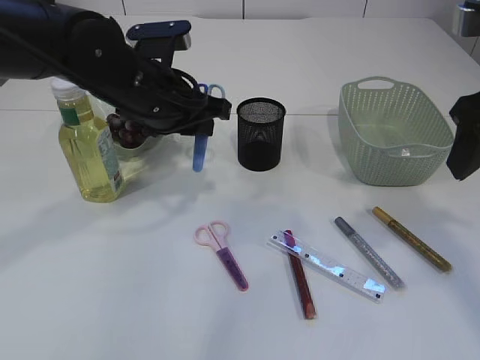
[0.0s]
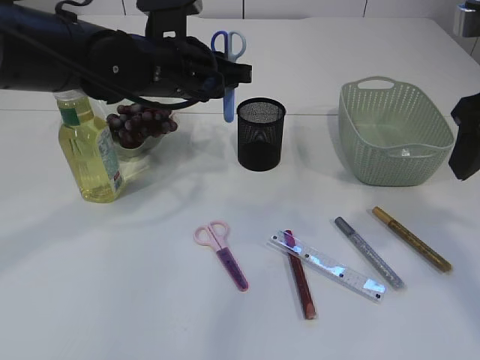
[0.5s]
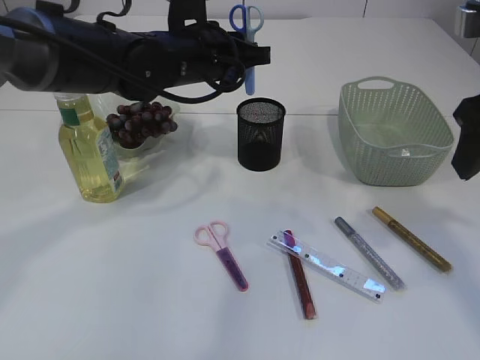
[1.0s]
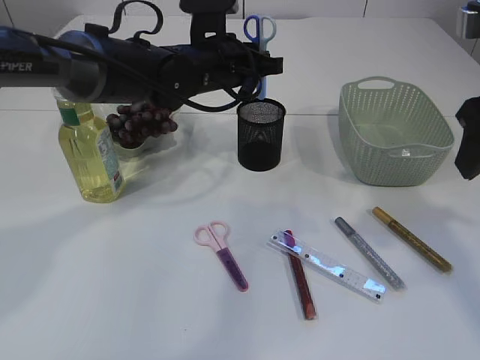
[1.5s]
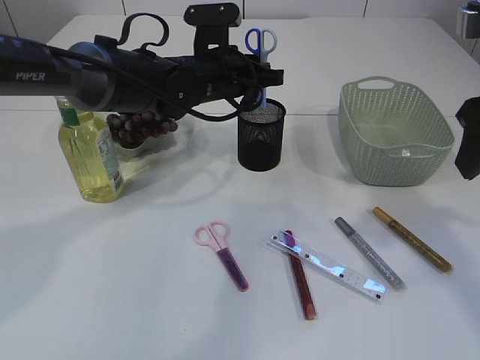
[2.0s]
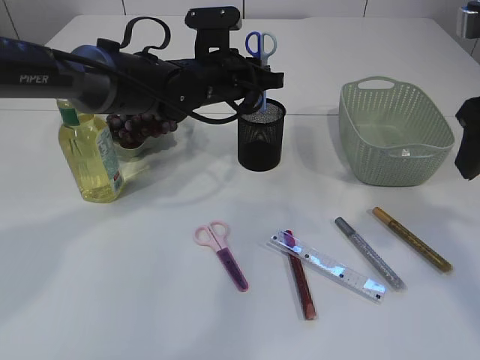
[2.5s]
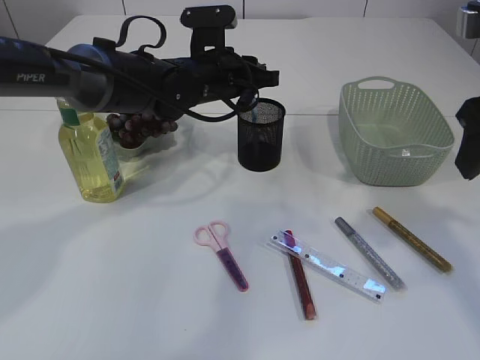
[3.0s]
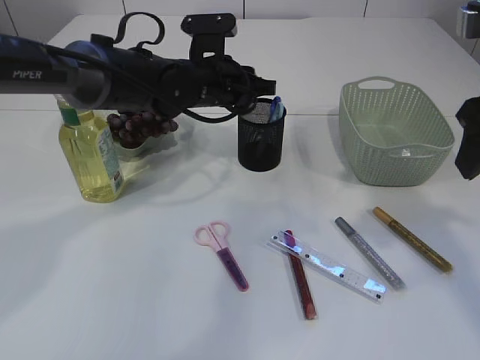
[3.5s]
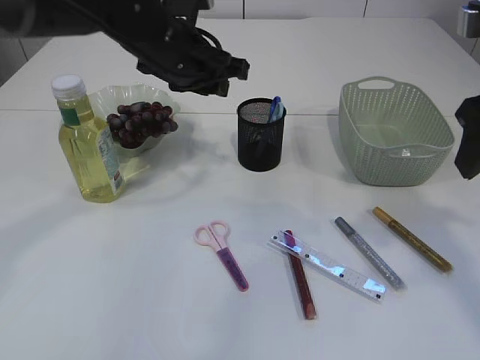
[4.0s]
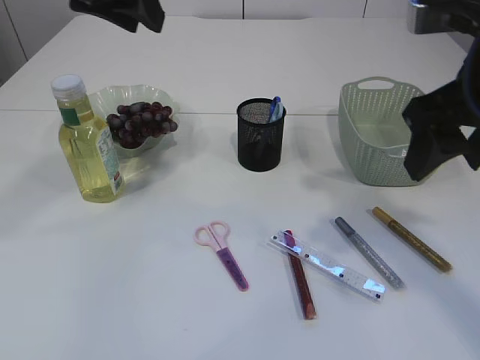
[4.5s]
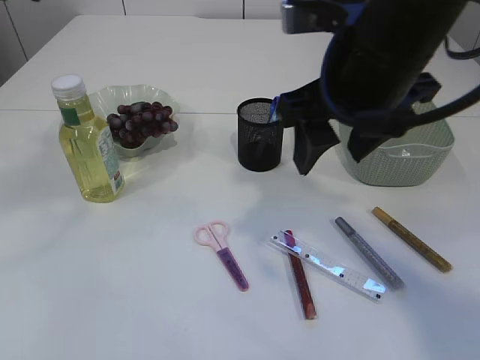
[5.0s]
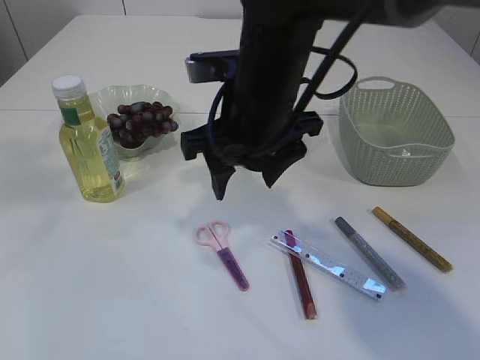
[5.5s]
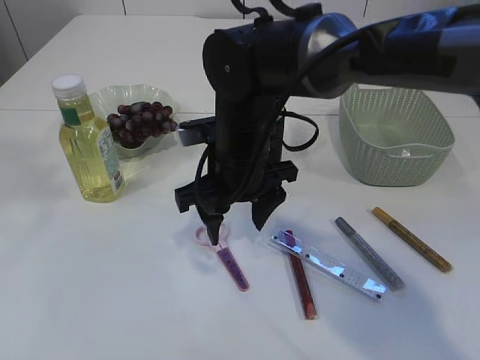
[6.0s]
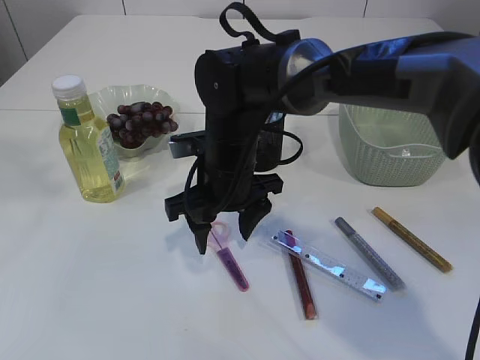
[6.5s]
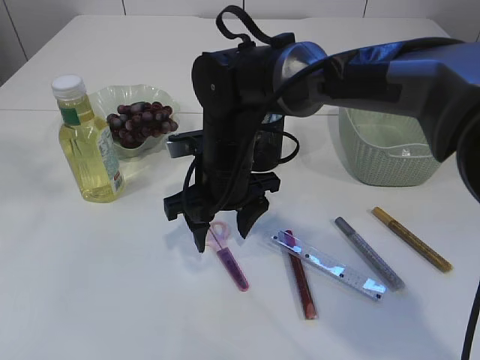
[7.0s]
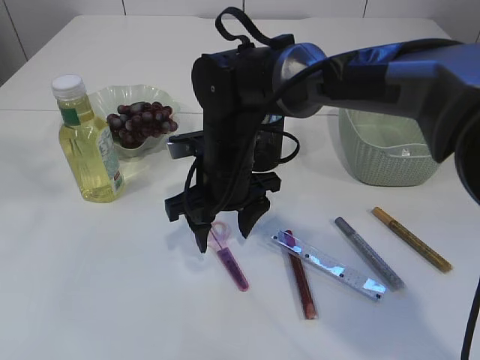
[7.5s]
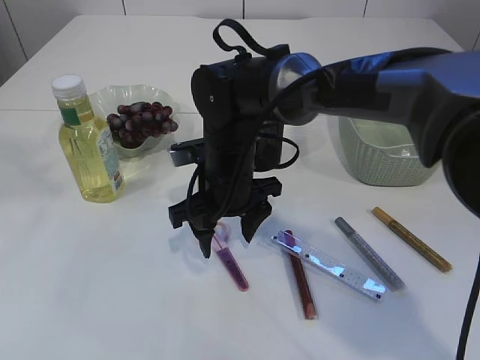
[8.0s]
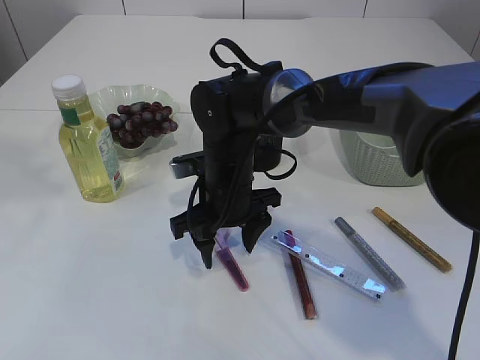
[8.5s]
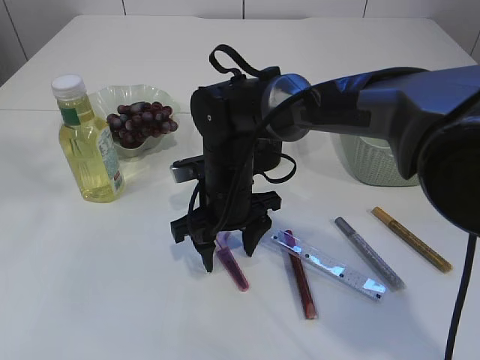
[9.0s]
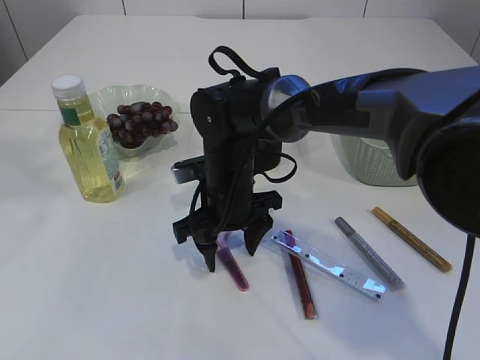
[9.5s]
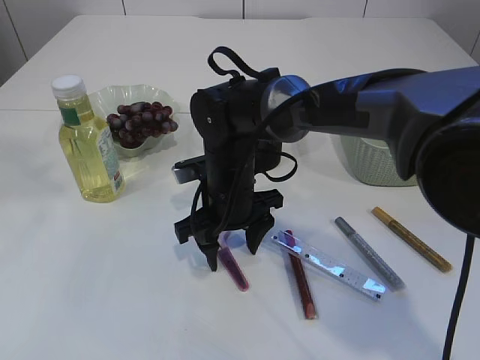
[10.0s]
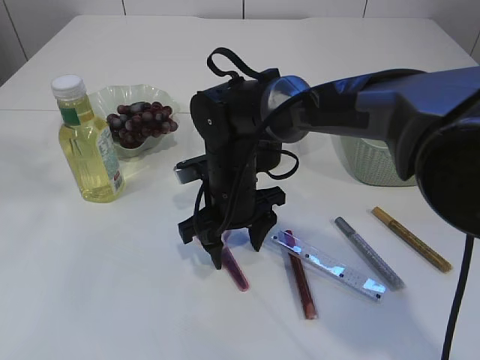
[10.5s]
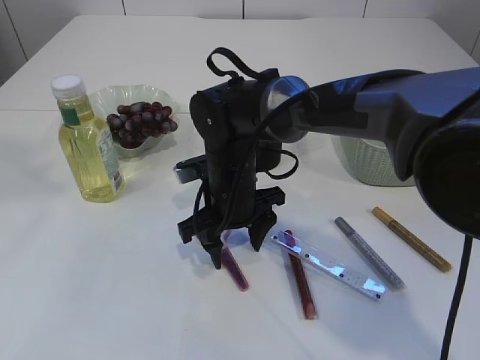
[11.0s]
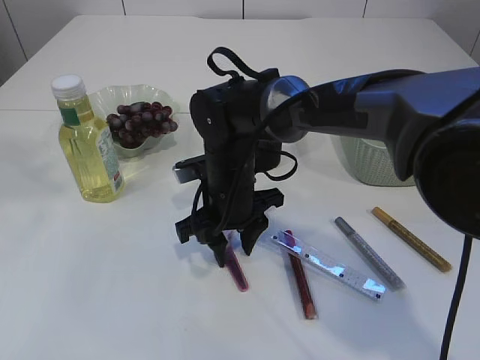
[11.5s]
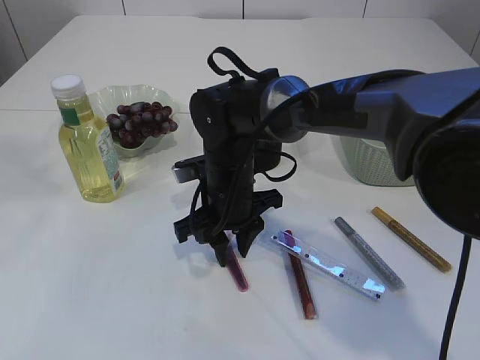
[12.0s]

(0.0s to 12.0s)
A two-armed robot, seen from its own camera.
Step, 0.0s - 3.0s: Place the blue scissors into the pen holder.
0.0s - 2.0s: The left gripper goes about 10 cm forward and to the right.
2.0s - 4.0s: The left gripper moves upward, some 5 cm.
4.0s - 6.0s: The left gripper goes some 35 cm upward, backward and to the left. The right gripper shifts some 25 cm to the left and downward.
6.0s - 8.0s: There are only small adjustments of the grippers.
8.0s - 10.0s: The grippers make only small movements.
10.0s - 12.0s: The right gripper closes its fingers.

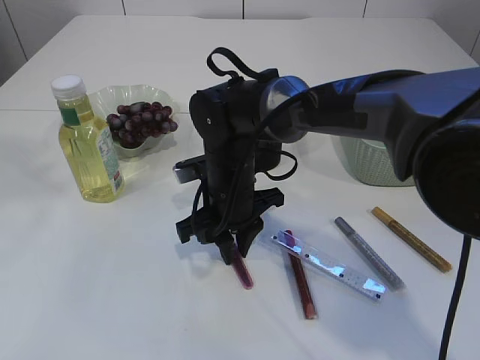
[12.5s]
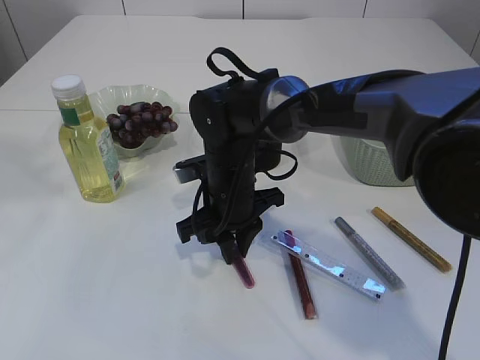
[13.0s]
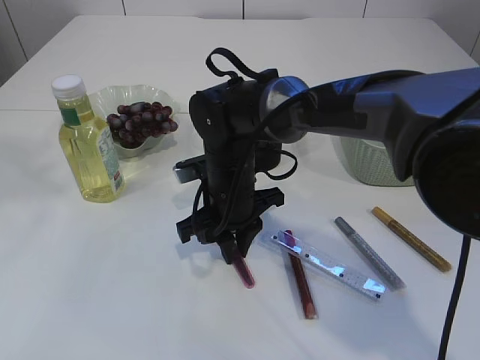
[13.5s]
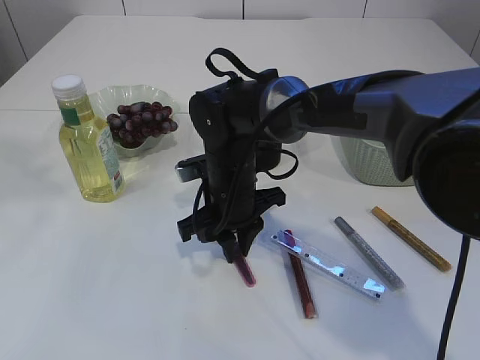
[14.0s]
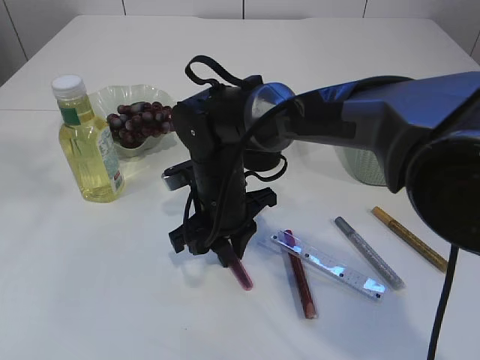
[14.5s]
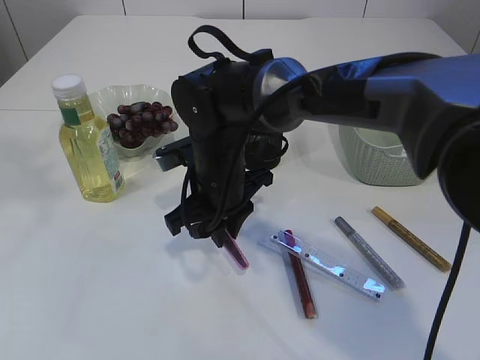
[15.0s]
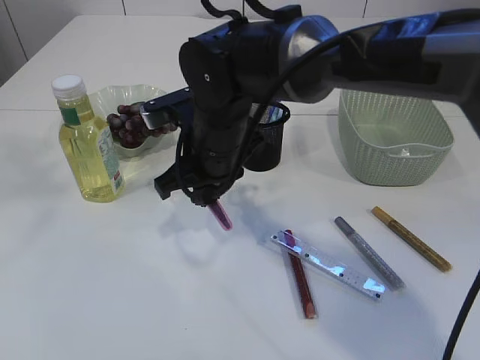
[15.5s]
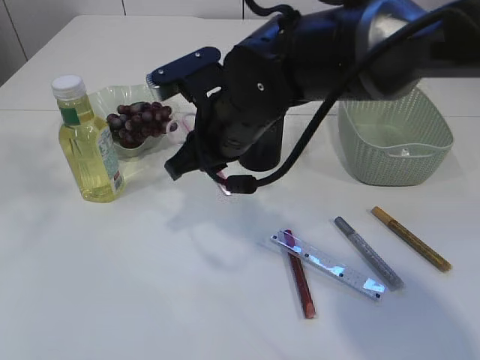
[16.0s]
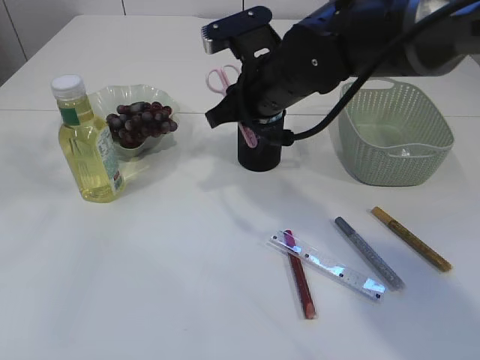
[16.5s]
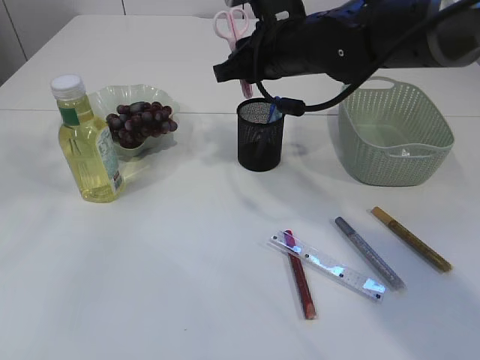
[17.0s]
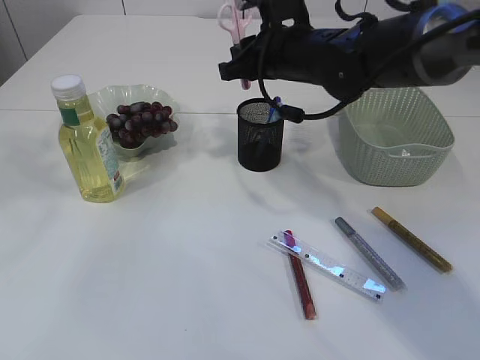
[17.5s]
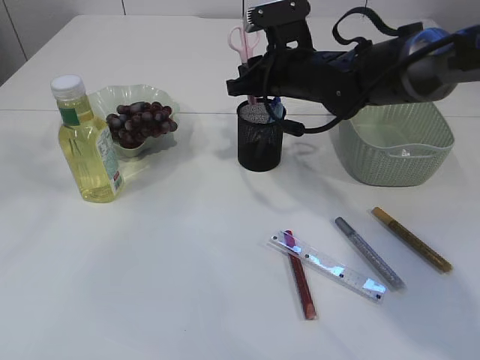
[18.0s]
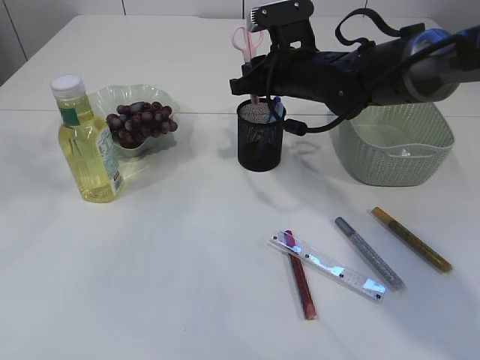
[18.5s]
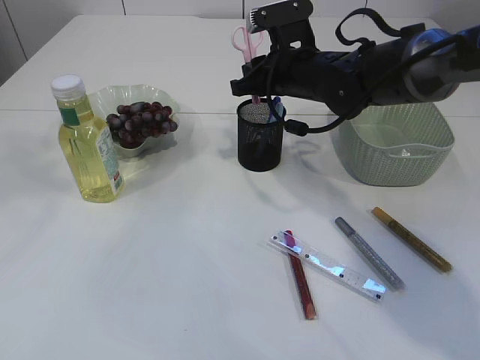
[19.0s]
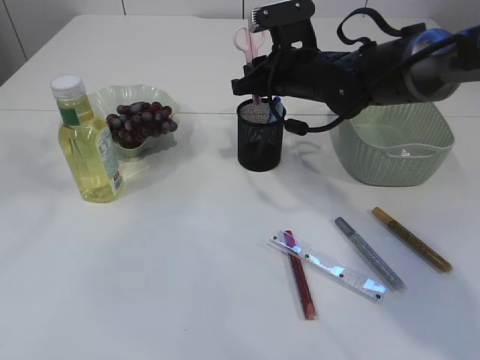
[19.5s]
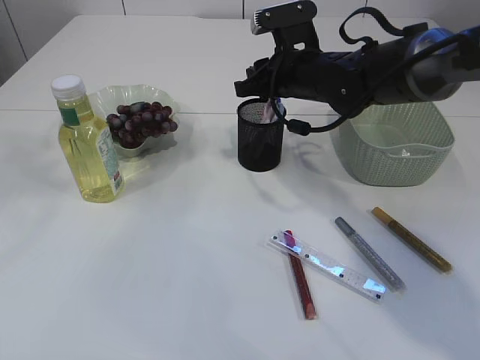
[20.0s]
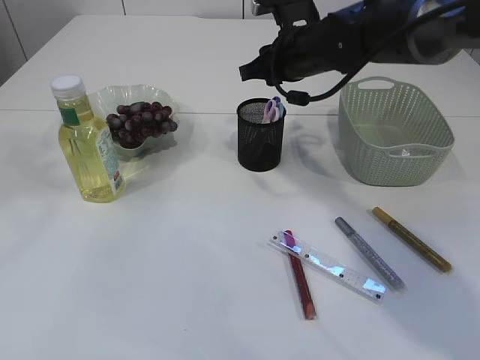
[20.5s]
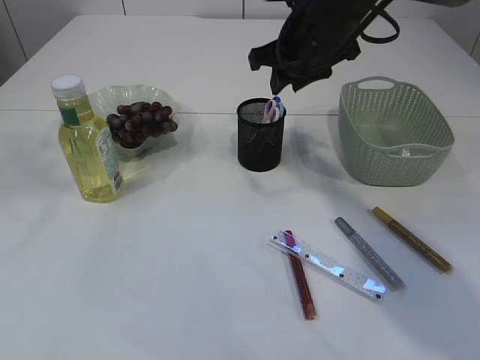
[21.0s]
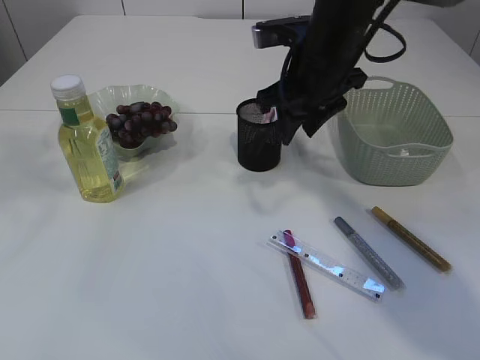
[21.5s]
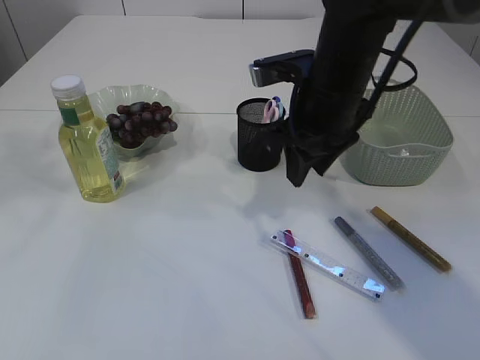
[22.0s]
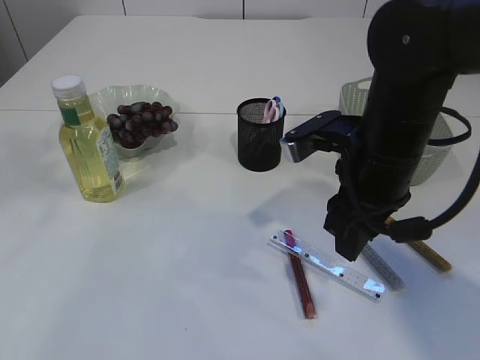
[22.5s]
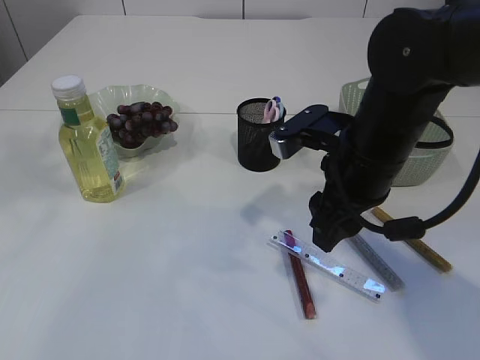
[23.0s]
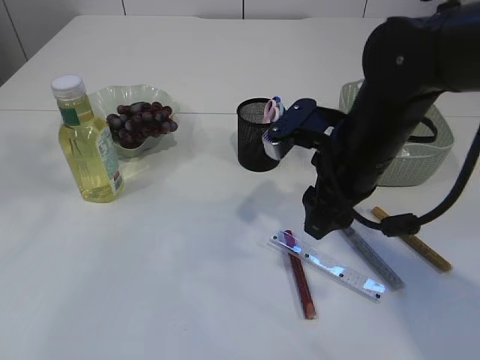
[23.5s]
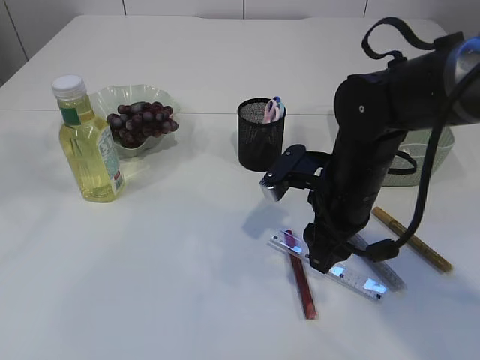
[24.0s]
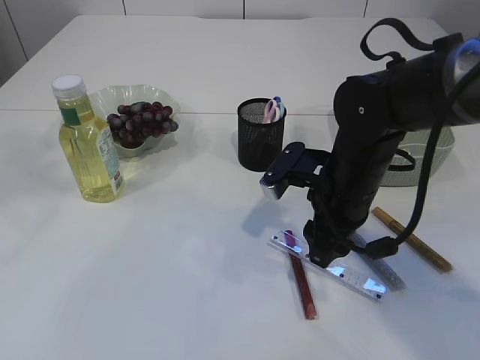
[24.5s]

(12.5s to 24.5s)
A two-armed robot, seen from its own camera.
Step, 12.5s - 15.0s: pick up the pink scissors.
Step, 15.5s - 20.0s: Place the pink scissors into the pen holder.
12.5s - 14.5s: The grippers move only a little.
14.5s - 16.5s: The right gripper heads upward and to the right, covering some 15 cm.
16.5s - 18.5s: The right gripper heads forward, covering approximately 5 cm.
18.5s - 20.5s: The grippers move only a little.
20.5s - 22.5s: The right gripper moves backward, about 15 cm.
22.5s - 24.5s: The right gripper travels downward by about 5 cm.

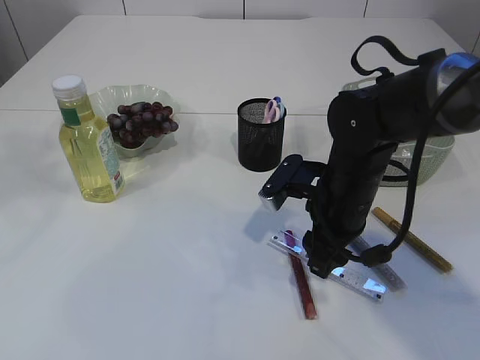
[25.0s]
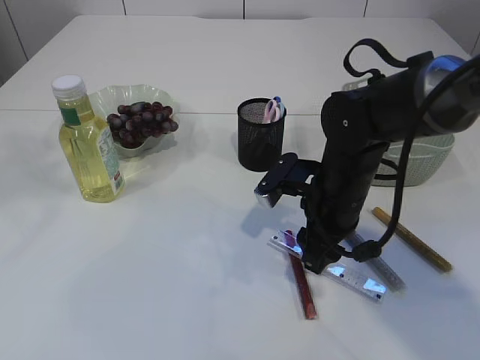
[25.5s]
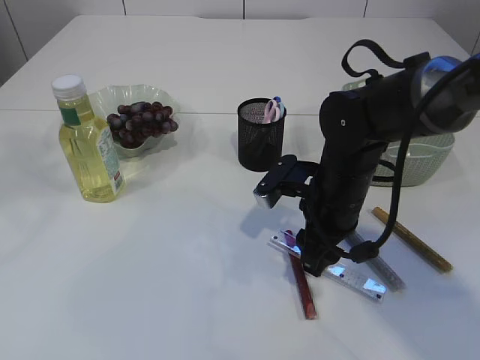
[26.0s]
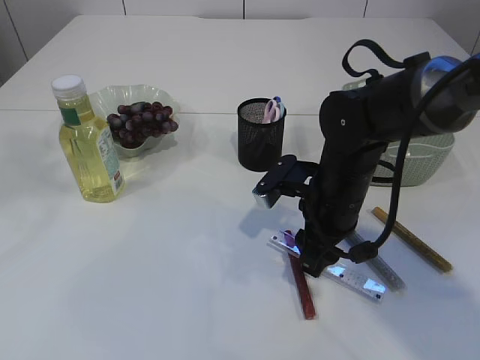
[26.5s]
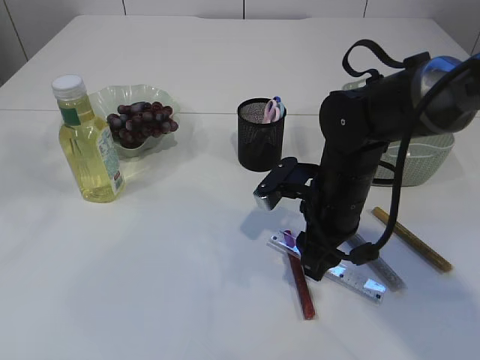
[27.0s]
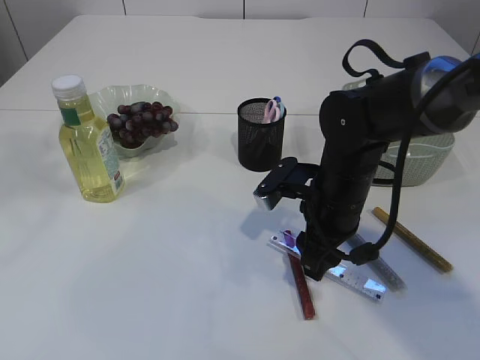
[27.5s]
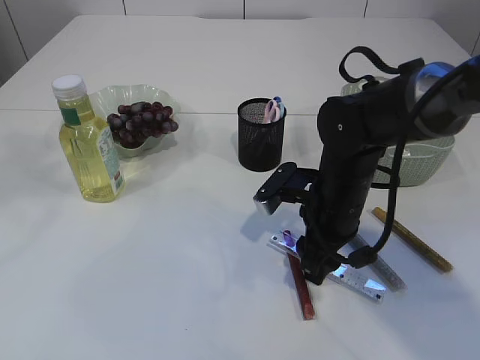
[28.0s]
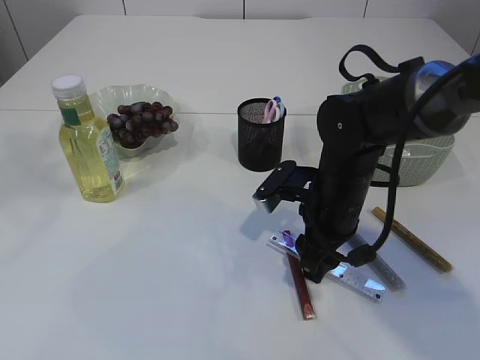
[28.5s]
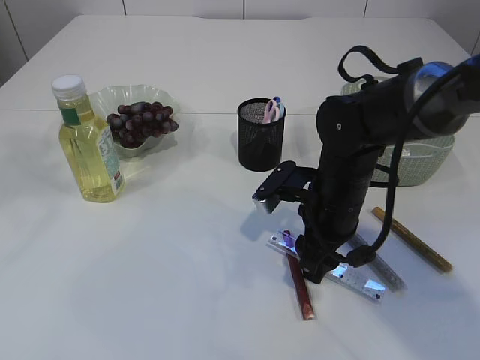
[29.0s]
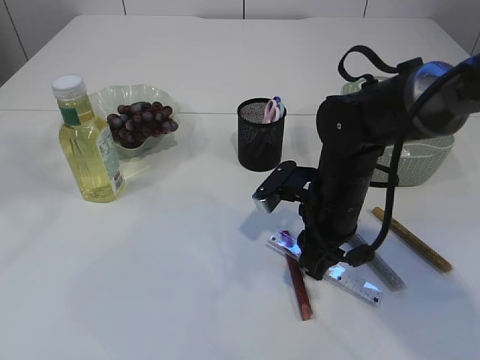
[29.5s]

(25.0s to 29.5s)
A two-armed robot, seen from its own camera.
25.0s - 27.0s: The two grippers keep their place.
27.0s - 29.5s: Both grippers stay about where they are.
